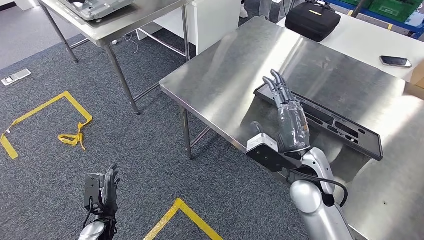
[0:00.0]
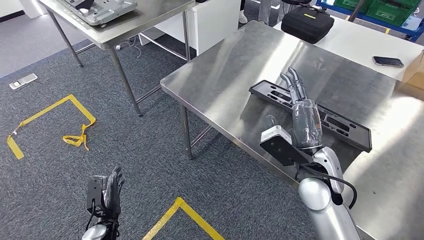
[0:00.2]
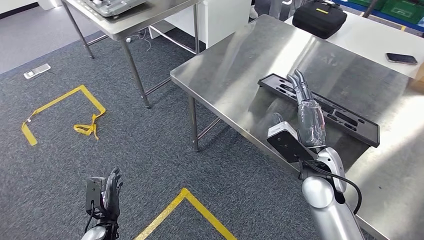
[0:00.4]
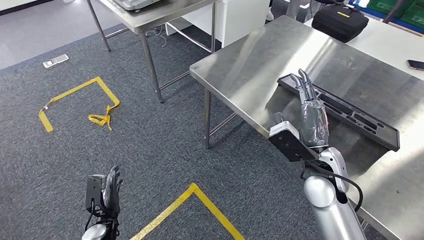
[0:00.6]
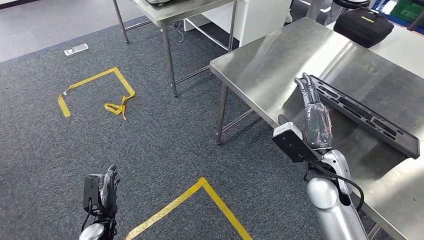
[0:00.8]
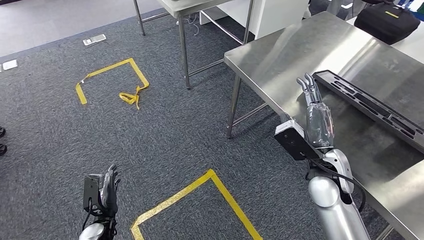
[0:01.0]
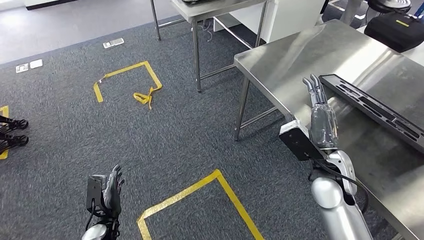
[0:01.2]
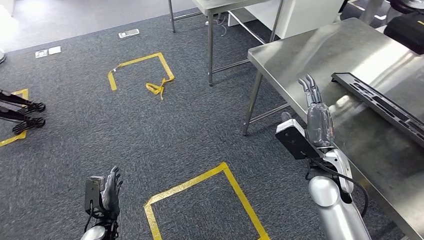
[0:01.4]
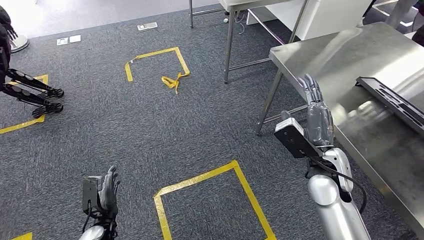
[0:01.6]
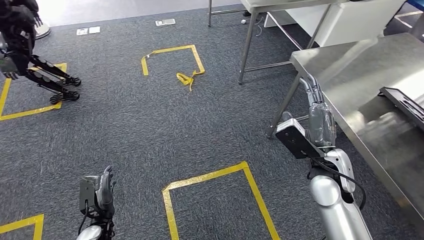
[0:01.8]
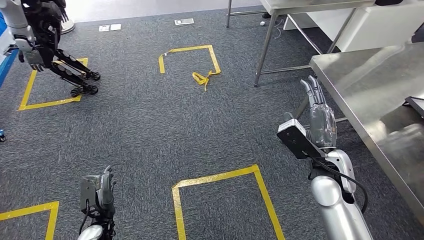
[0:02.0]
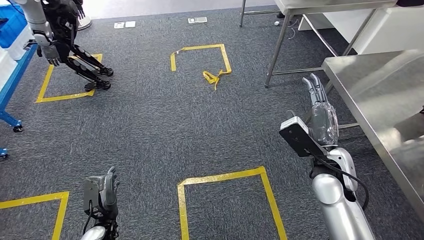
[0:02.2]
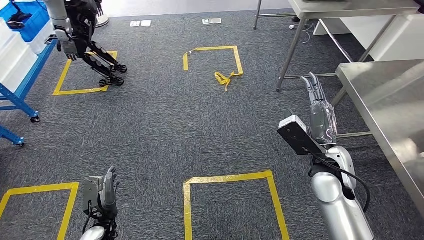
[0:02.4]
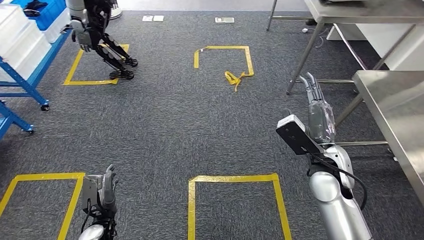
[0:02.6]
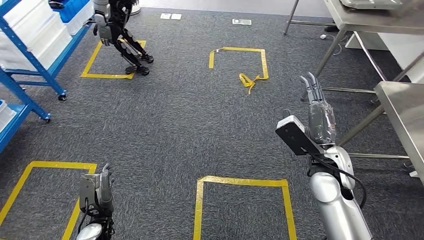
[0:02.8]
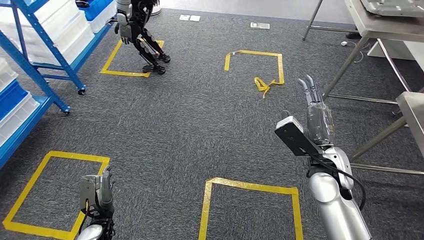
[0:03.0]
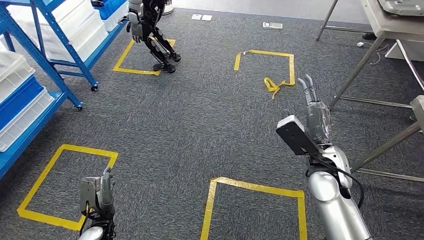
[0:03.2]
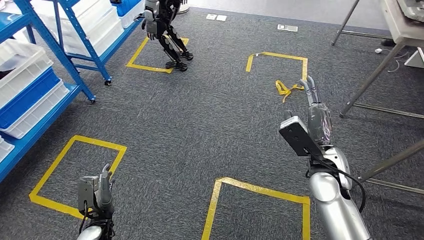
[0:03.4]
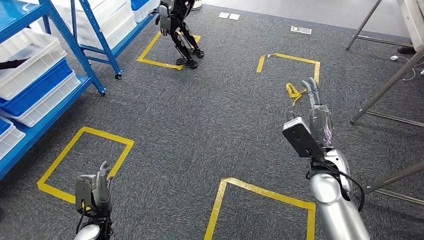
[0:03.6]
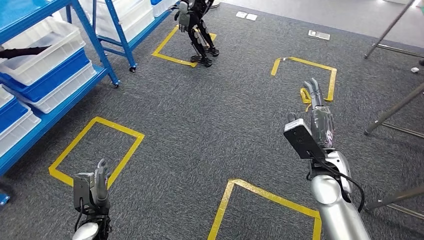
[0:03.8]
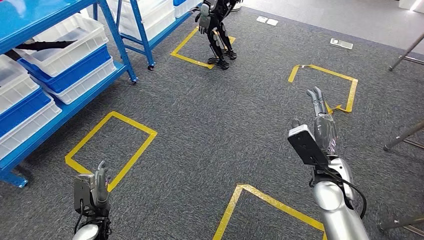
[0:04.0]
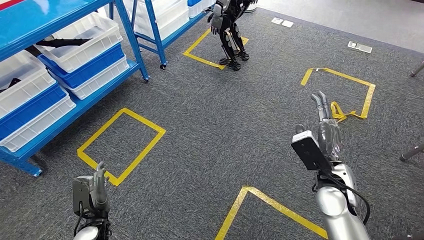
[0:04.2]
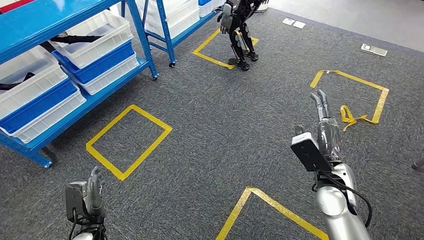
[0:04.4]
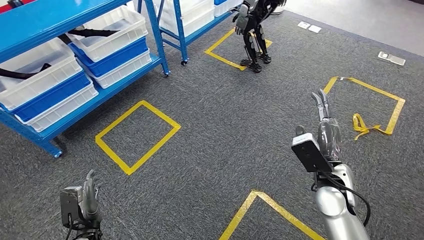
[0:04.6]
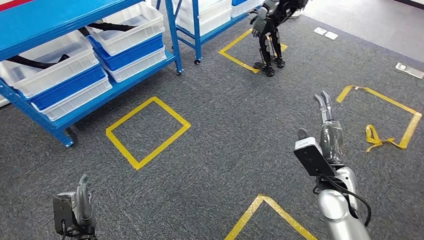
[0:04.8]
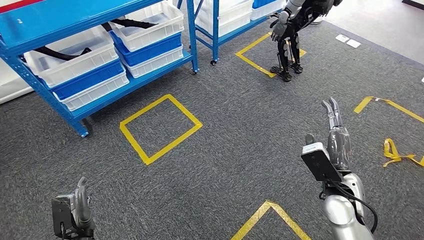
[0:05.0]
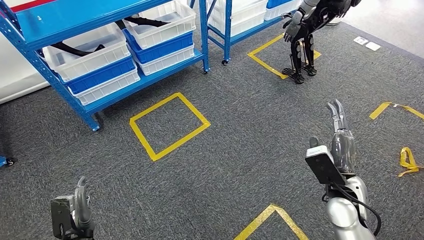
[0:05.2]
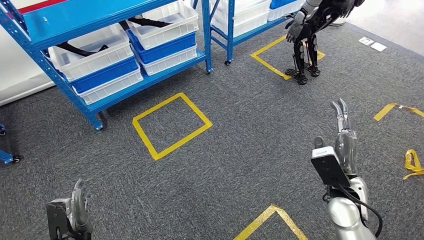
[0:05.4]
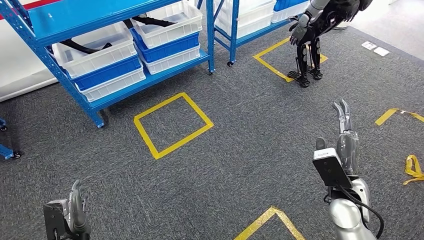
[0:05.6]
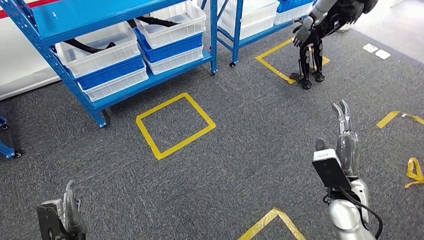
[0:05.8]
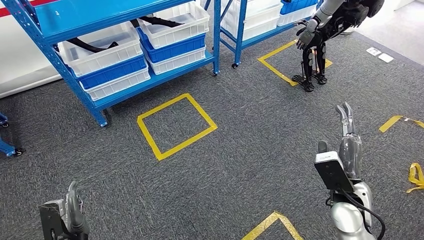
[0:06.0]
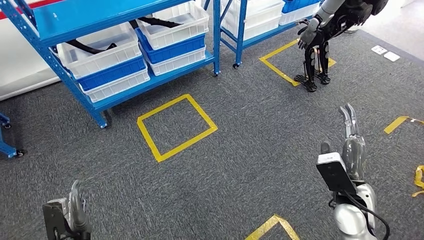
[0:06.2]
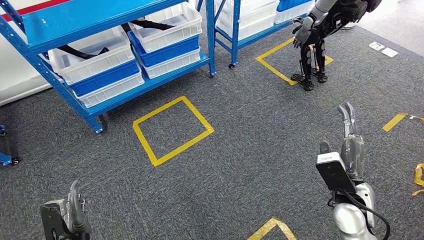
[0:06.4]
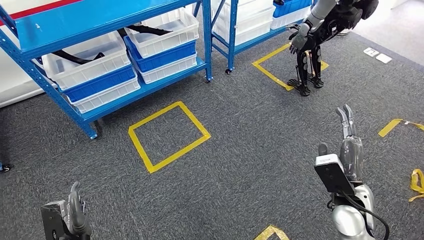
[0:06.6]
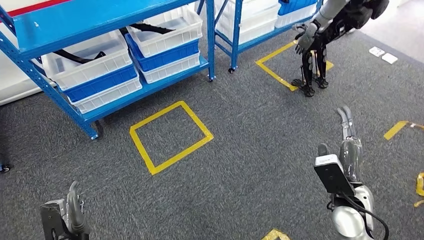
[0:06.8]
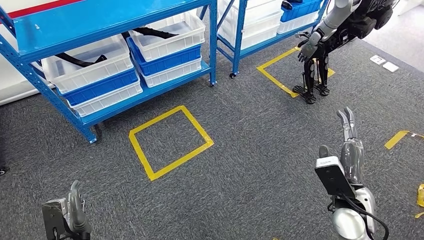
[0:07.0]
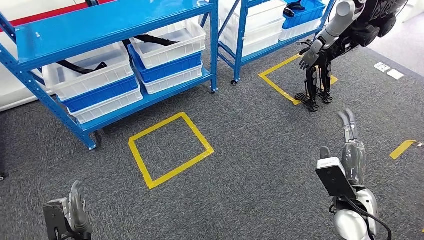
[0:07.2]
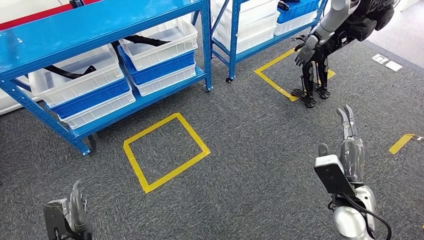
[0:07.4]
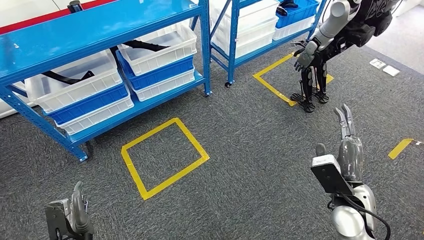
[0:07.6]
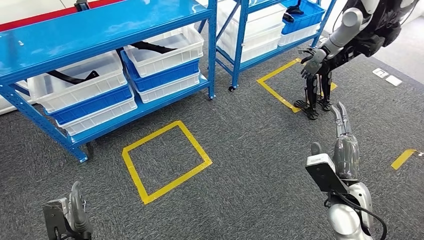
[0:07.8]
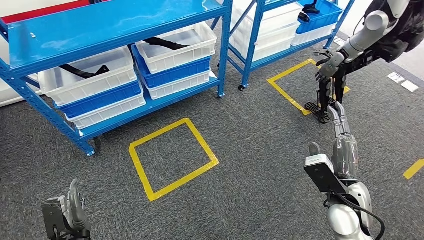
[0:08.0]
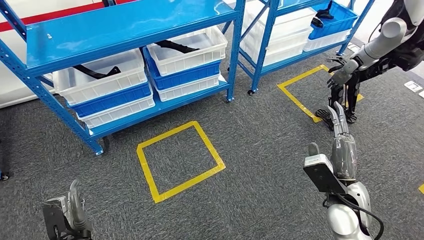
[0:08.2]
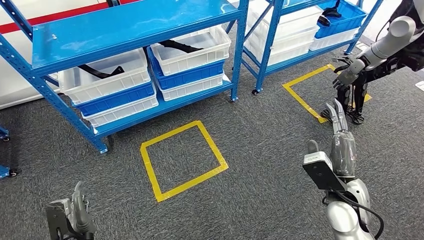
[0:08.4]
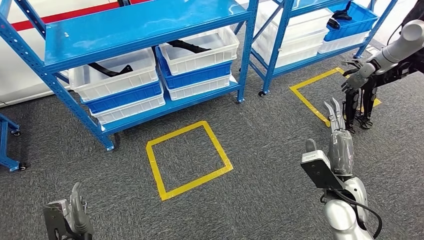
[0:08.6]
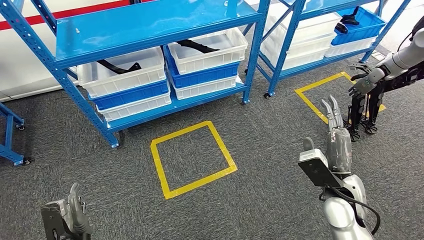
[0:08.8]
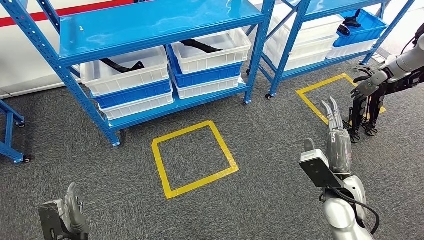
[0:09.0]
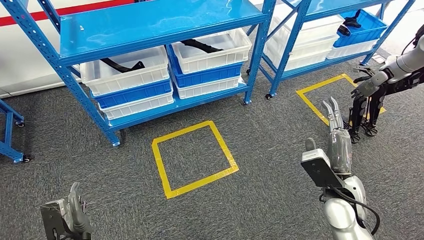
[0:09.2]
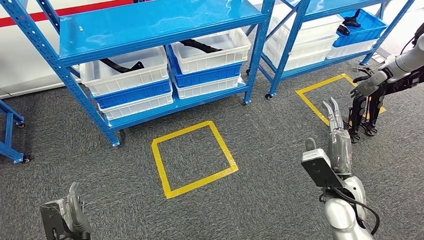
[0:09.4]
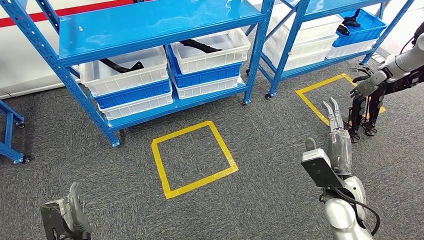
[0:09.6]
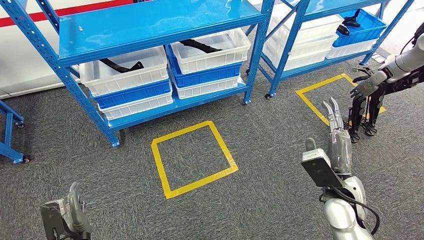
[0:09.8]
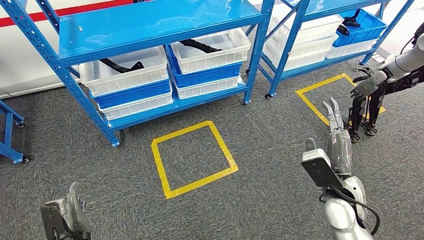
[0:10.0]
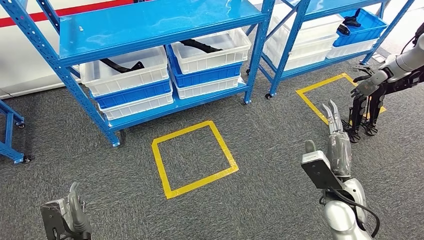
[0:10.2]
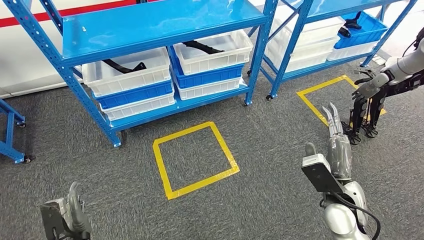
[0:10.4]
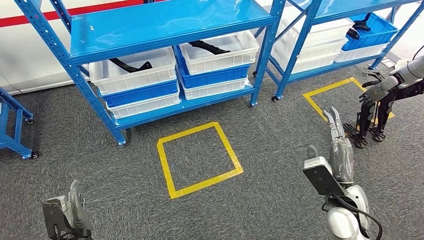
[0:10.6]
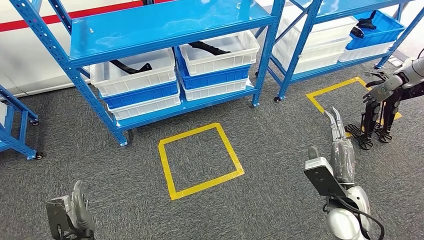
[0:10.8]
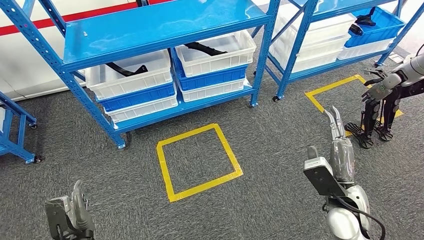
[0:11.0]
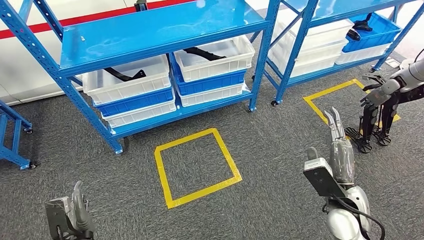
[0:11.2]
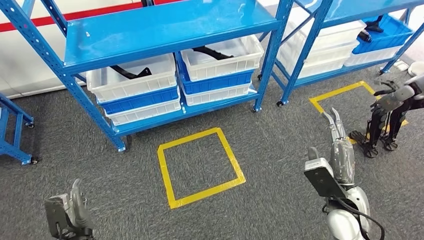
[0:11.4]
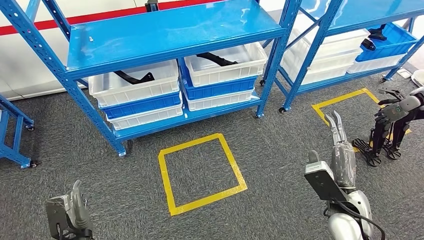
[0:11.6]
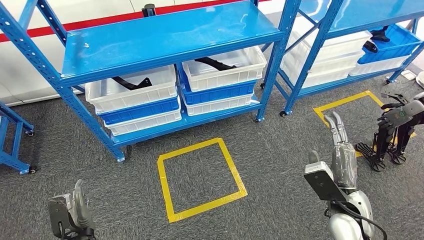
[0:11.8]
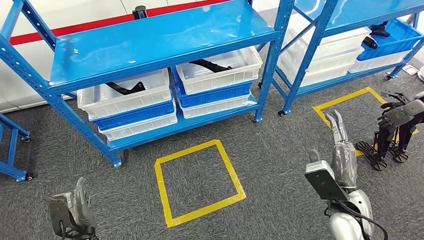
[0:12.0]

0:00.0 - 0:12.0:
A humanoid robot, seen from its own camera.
0:09.0 - 0:10.4: Both hands stay about where they are.

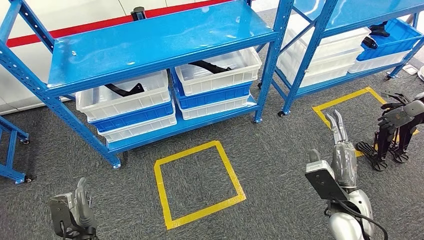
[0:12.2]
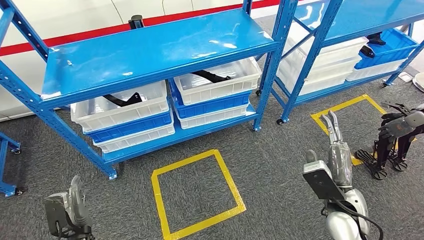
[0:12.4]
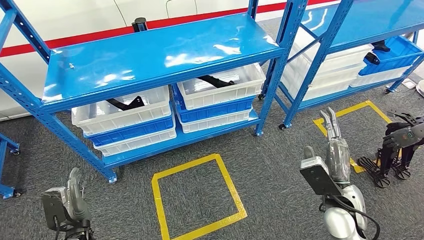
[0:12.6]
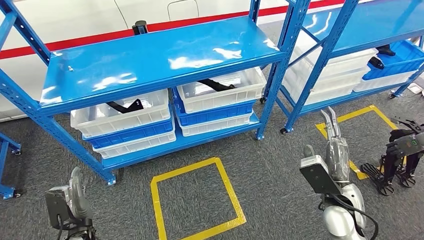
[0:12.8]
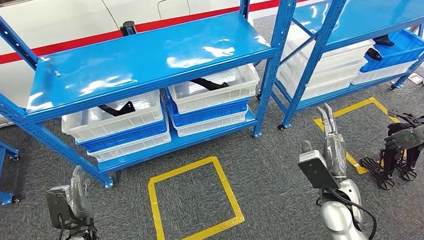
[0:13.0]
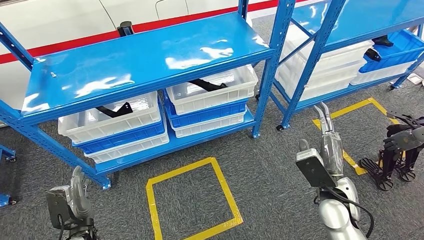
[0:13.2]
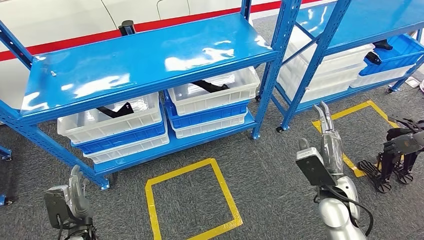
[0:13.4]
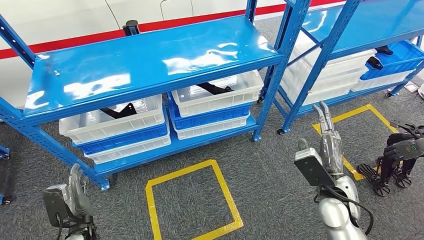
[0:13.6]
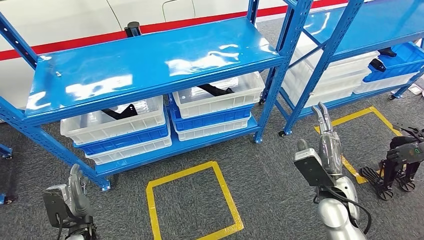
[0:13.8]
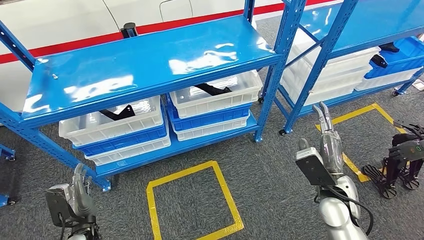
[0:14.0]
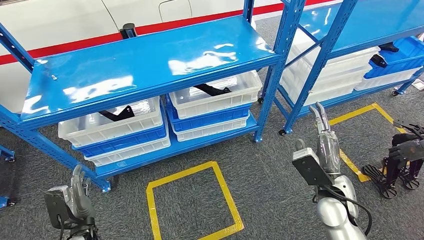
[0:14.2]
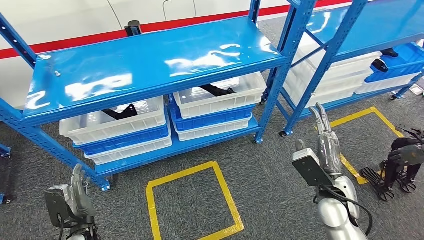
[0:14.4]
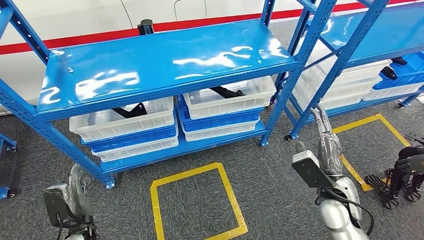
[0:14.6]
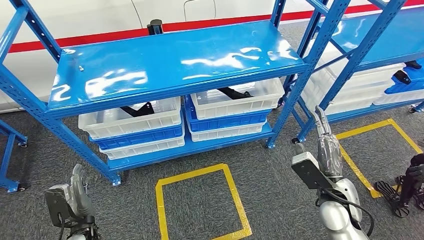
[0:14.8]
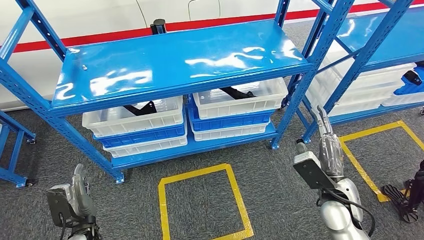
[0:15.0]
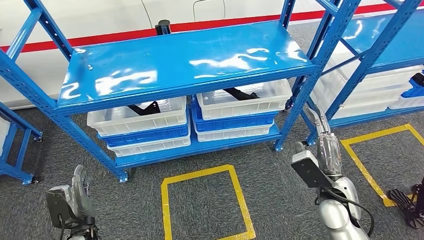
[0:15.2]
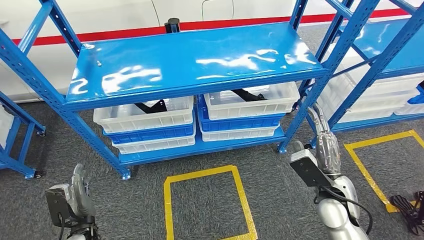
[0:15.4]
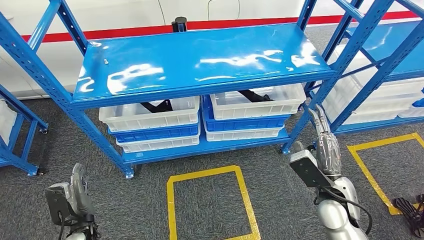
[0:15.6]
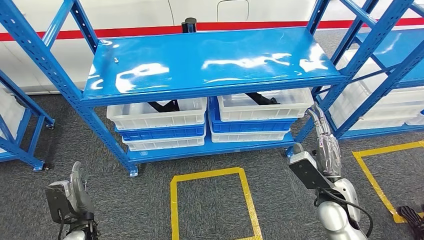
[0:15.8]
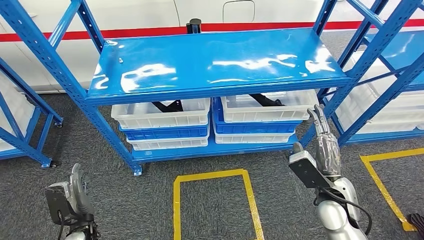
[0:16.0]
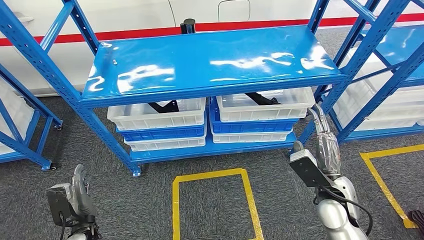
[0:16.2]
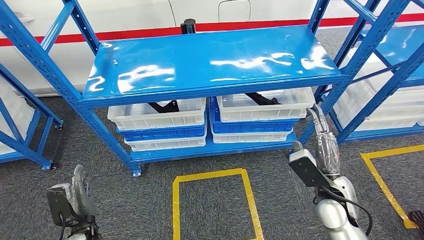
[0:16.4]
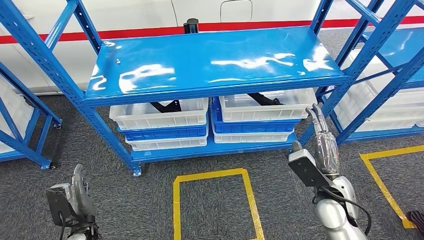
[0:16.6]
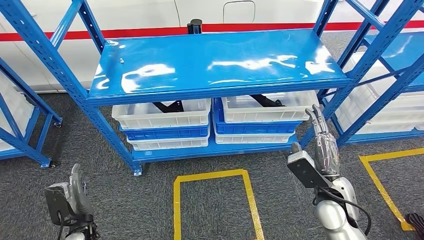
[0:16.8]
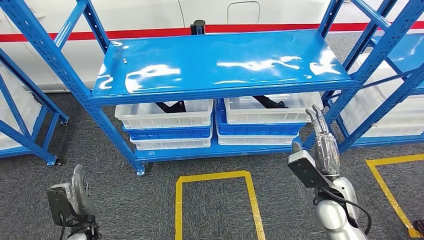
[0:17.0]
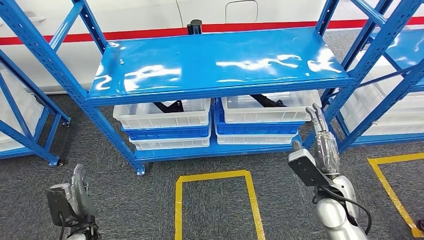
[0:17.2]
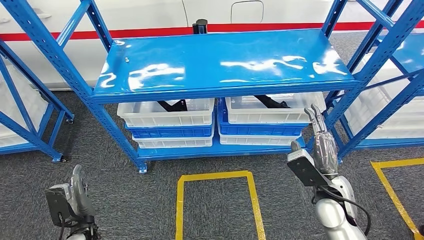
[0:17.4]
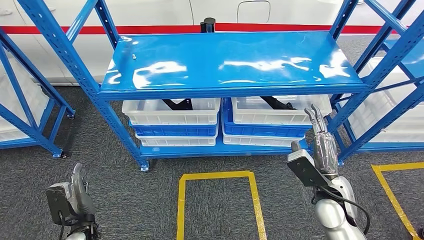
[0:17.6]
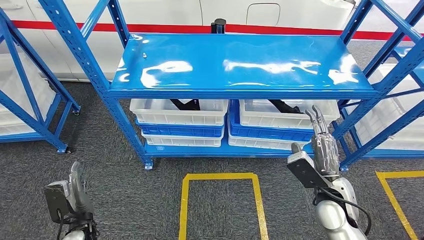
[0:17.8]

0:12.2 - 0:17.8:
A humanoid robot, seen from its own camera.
Step, 0:12.2 - 0:17.8: Return to the initial position at the shelf.
